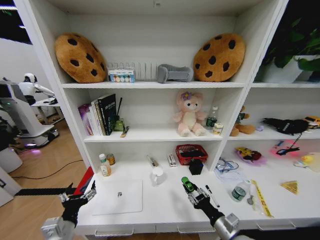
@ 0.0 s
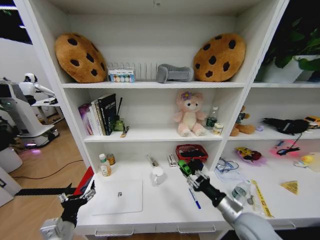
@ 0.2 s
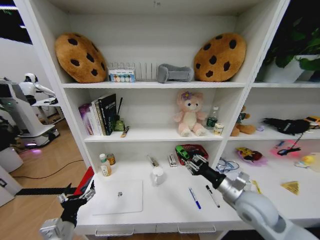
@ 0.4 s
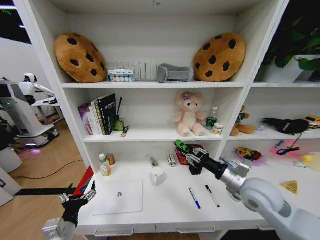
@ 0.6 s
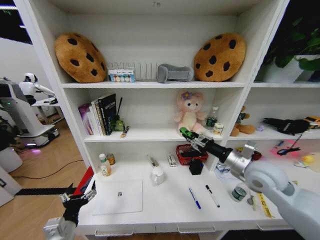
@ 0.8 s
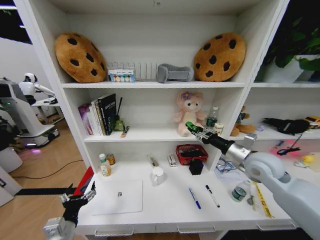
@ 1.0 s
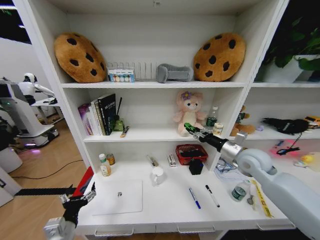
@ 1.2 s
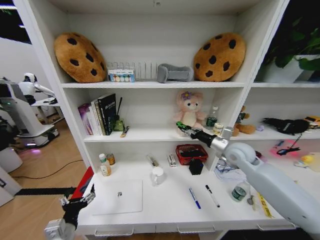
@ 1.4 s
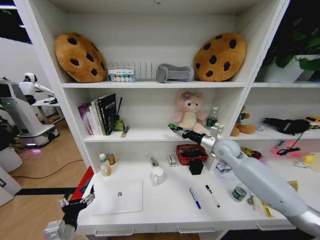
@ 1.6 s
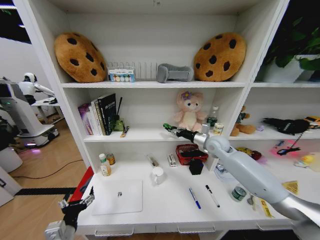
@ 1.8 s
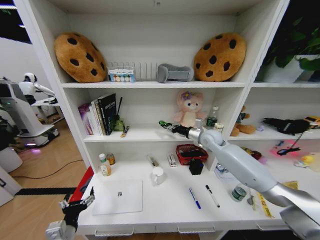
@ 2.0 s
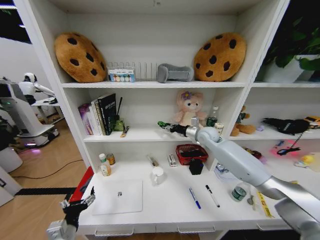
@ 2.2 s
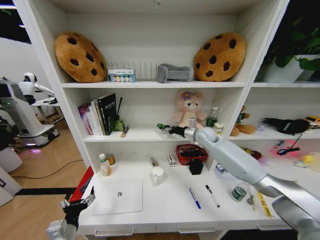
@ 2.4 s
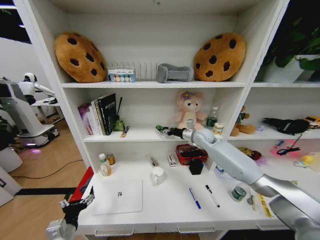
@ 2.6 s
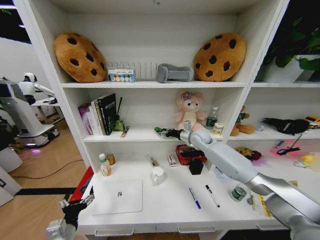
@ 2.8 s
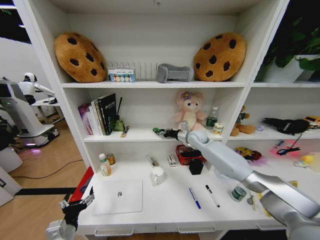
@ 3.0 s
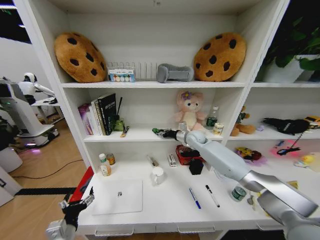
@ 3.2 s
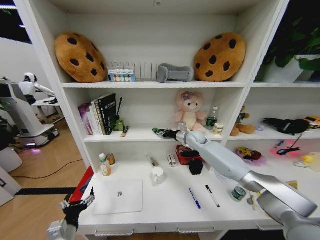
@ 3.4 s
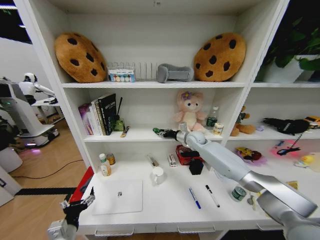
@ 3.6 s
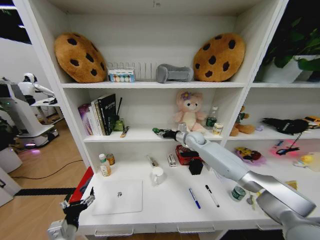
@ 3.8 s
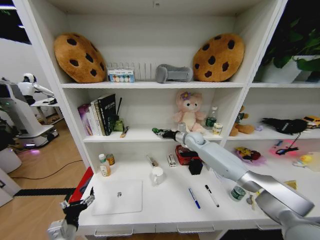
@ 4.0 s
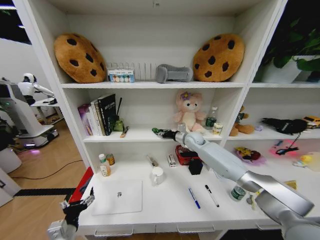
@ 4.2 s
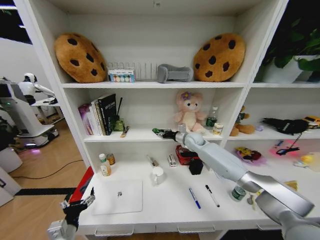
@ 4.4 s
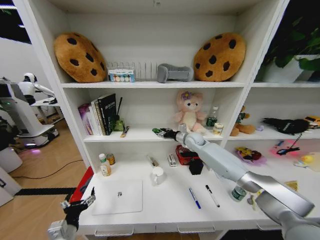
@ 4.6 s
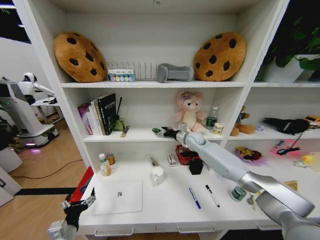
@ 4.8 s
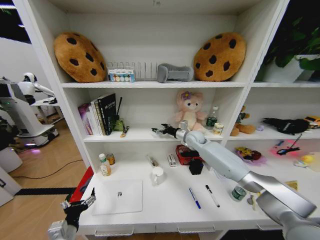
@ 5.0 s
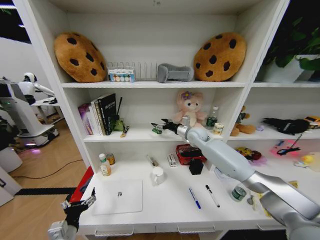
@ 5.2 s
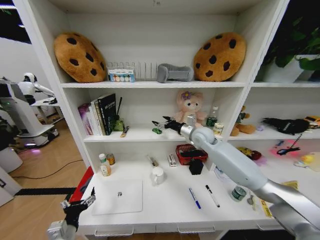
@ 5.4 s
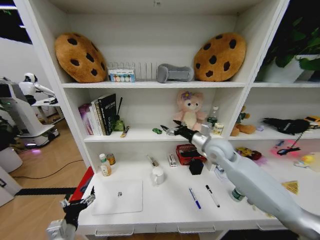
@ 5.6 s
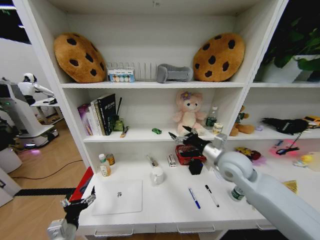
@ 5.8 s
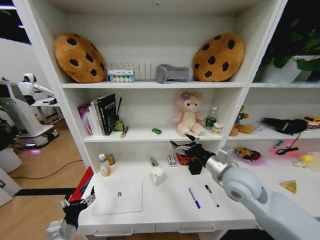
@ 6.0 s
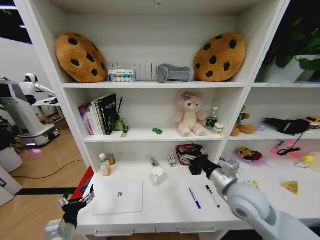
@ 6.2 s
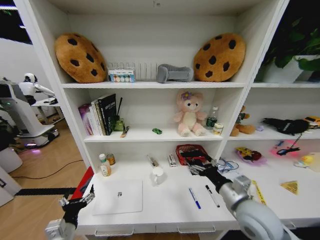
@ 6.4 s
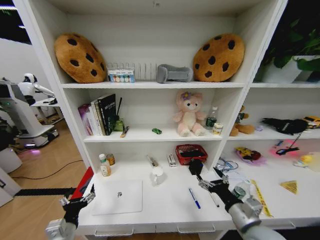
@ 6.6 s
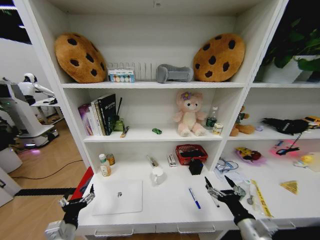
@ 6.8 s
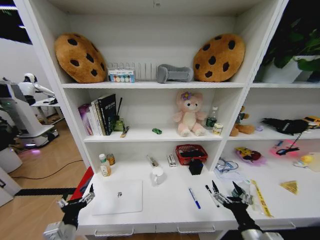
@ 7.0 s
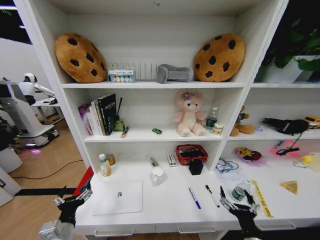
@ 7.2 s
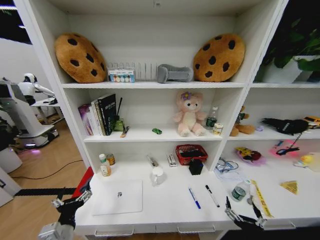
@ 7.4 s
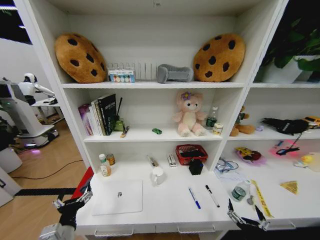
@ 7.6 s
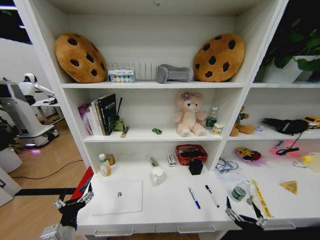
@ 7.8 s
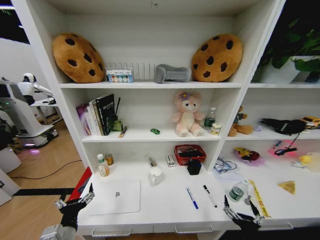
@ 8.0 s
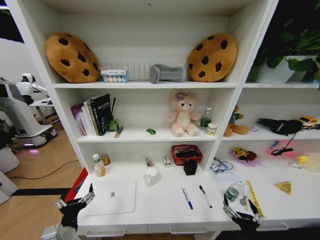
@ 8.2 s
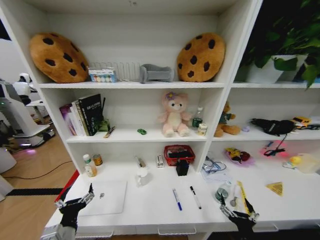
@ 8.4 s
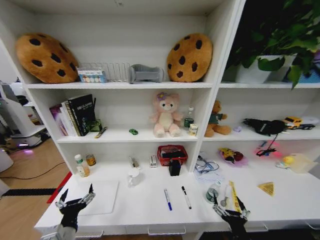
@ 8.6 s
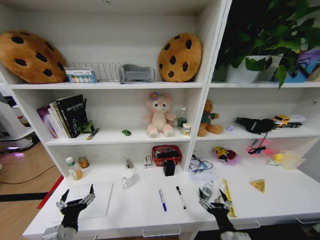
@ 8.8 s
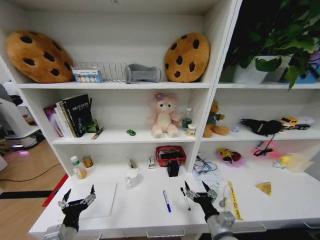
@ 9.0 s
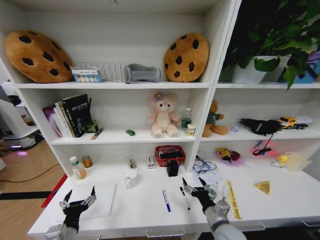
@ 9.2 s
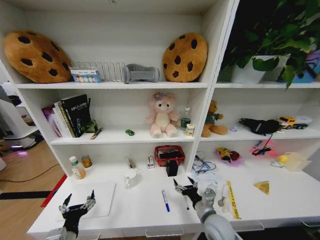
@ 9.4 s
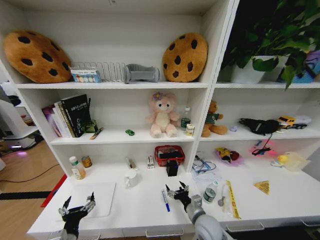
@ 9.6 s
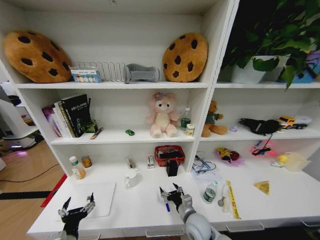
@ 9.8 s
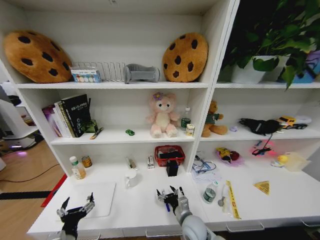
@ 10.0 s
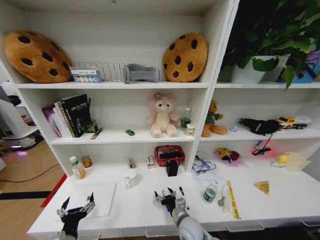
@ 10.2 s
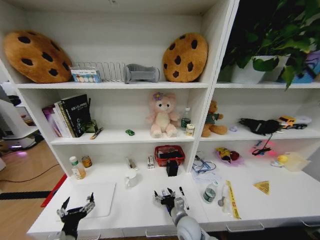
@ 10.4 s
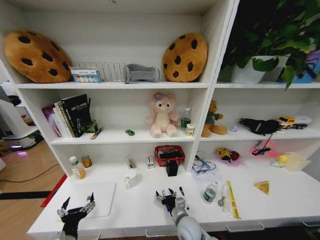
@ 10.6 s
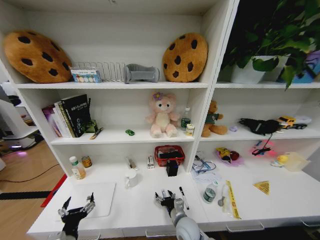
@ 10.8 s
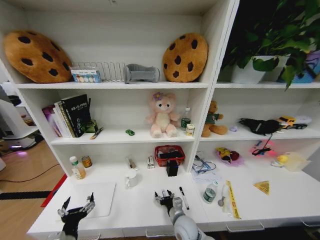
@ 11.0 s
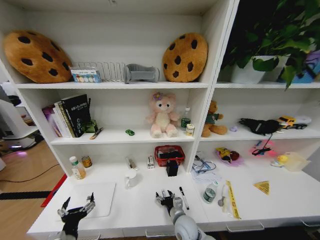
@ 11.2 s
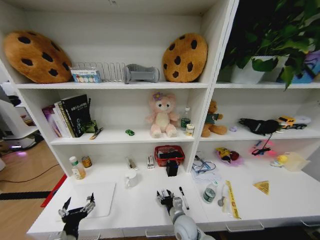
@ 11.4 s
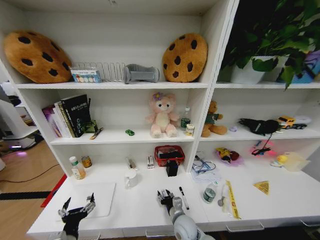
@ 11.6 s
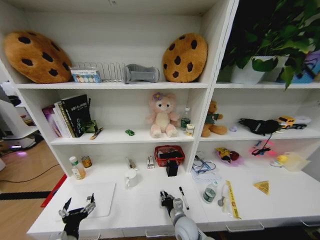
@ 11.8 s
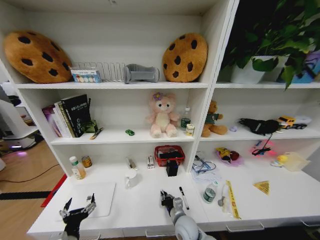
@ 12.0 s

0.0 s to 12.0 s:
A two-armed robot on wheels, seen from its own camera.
Task of the whole recording: Organize the objects on the table.
0.0 to 1.6 s: The right gripper moves forward and upward, some 35 cm.
1.6 to 3.0 s: The right gripper heads forward and to the left, covering about 15 cm.
3.0 to 4.4 s: There are only small adjustments of the grippers.
4.4 to 6.0 s: The right gripper goes approximately 25 cm backward, and opens its fingers.
6.0 to 7.6 s: The right gripper goes some 35 cm downward and backward.
7.6 to 9.0 s: The right gripper travels forward and to the left by approximately 10 cm.
9.0 to 10.4 s: The right gripper travels to the left, forward and downward by about 15 cm.
10.4 to 12.0 s: The right gripper closes up.

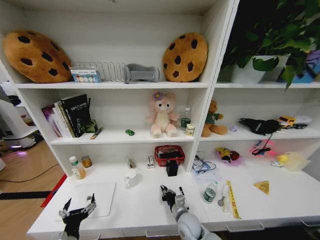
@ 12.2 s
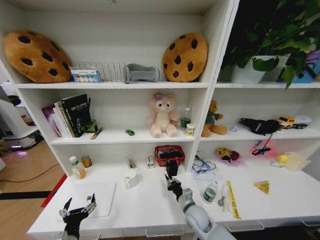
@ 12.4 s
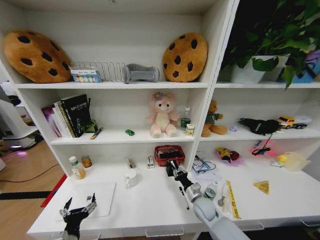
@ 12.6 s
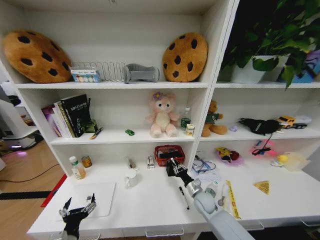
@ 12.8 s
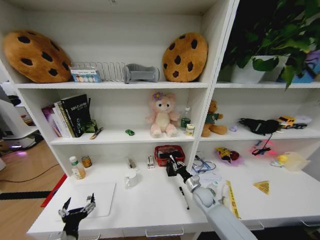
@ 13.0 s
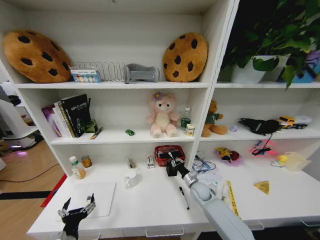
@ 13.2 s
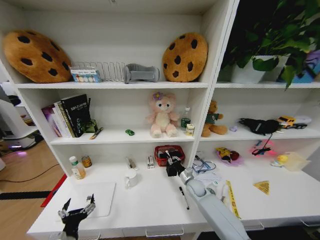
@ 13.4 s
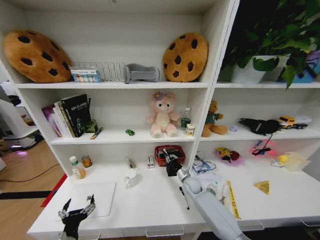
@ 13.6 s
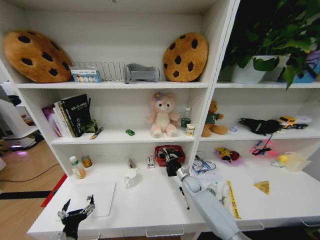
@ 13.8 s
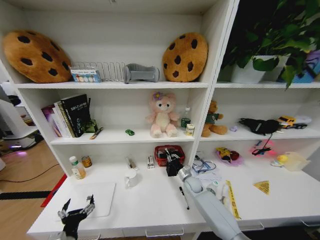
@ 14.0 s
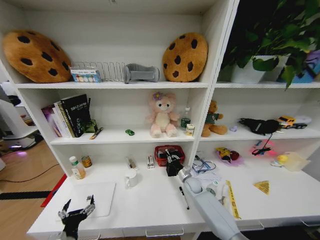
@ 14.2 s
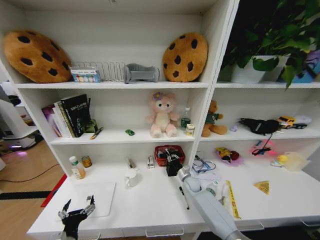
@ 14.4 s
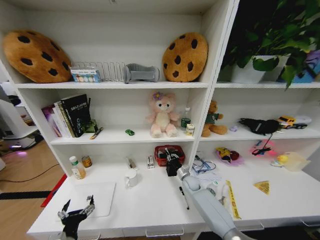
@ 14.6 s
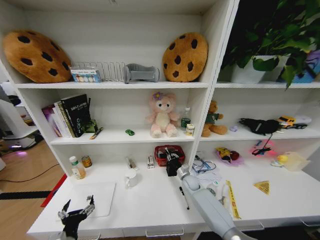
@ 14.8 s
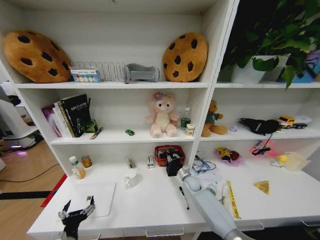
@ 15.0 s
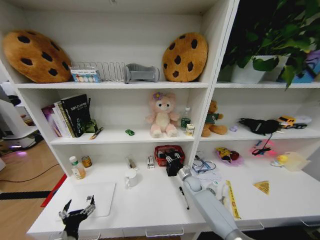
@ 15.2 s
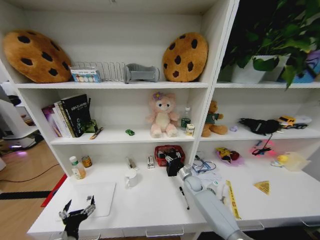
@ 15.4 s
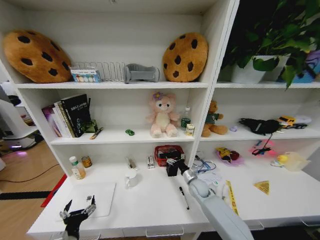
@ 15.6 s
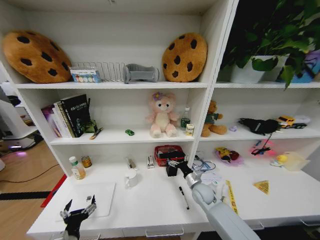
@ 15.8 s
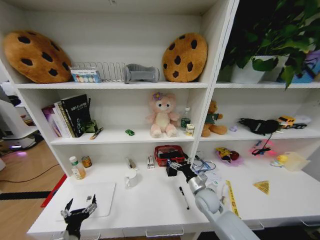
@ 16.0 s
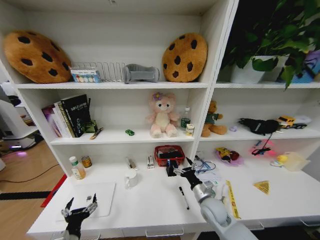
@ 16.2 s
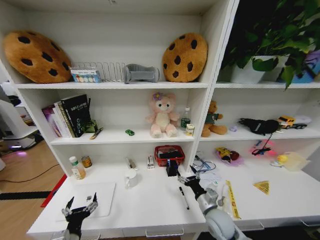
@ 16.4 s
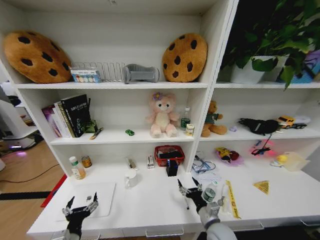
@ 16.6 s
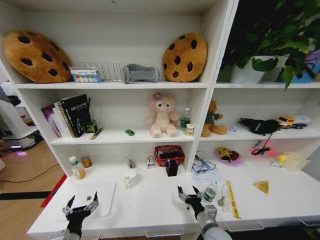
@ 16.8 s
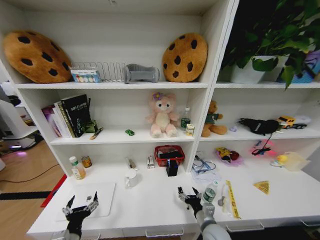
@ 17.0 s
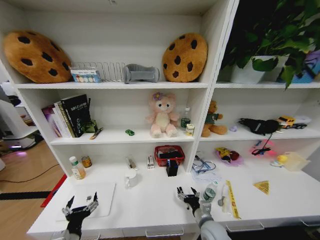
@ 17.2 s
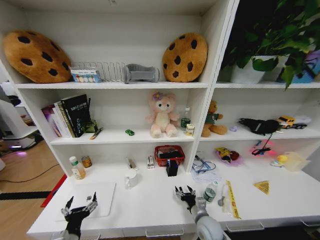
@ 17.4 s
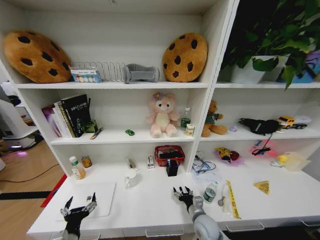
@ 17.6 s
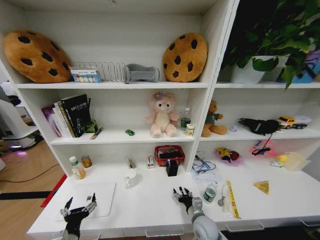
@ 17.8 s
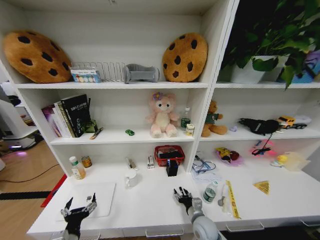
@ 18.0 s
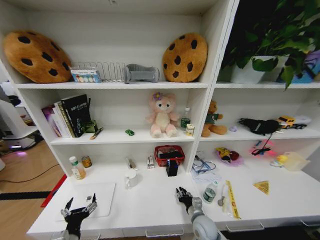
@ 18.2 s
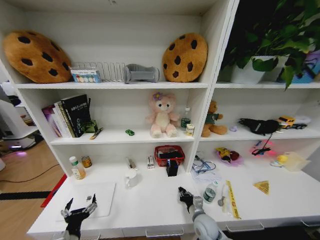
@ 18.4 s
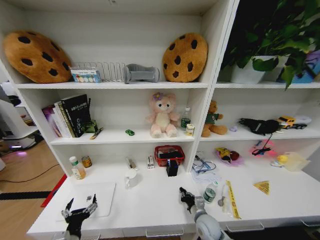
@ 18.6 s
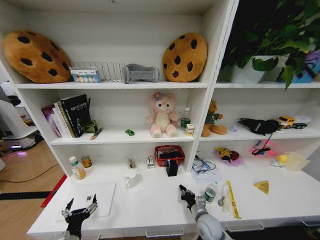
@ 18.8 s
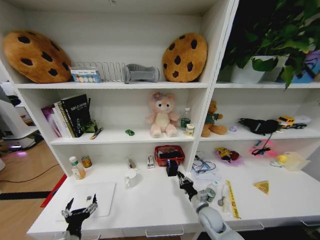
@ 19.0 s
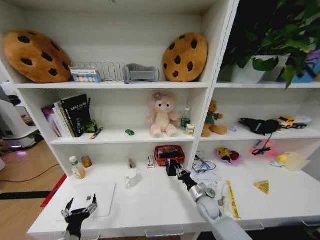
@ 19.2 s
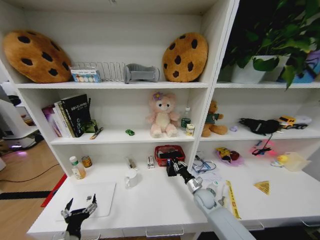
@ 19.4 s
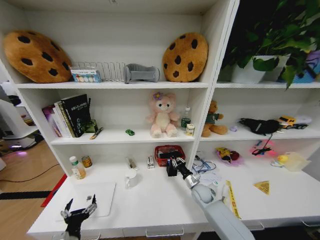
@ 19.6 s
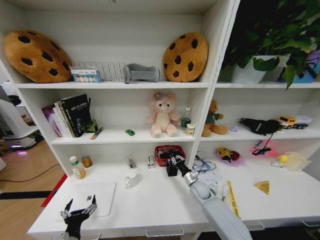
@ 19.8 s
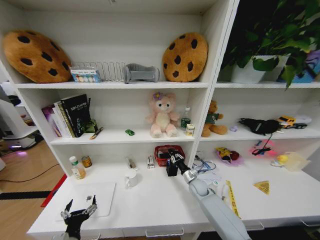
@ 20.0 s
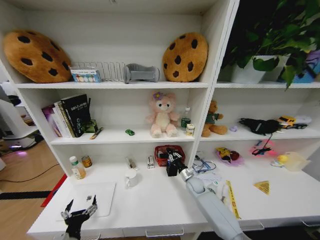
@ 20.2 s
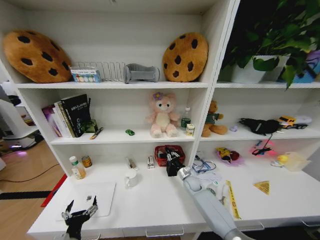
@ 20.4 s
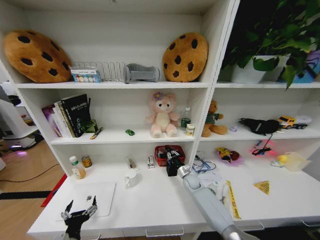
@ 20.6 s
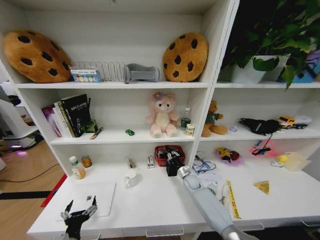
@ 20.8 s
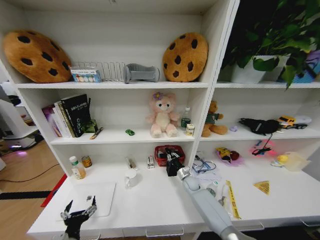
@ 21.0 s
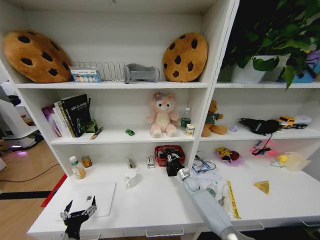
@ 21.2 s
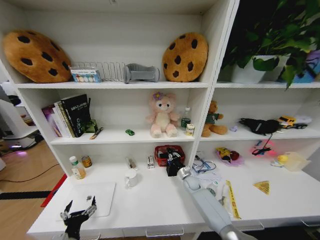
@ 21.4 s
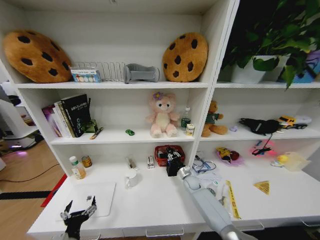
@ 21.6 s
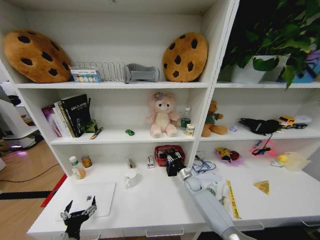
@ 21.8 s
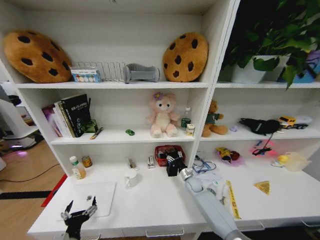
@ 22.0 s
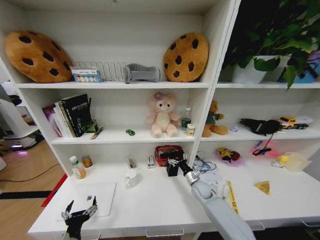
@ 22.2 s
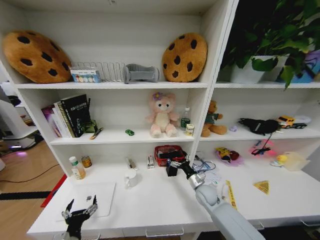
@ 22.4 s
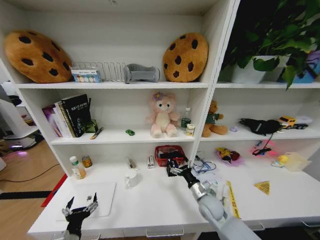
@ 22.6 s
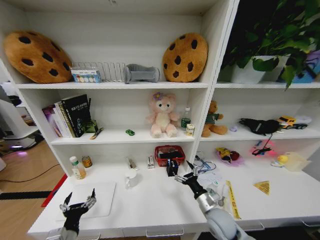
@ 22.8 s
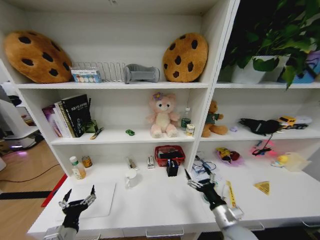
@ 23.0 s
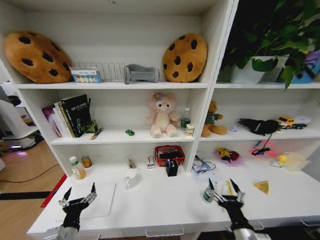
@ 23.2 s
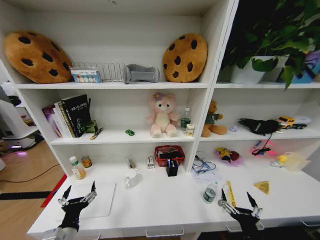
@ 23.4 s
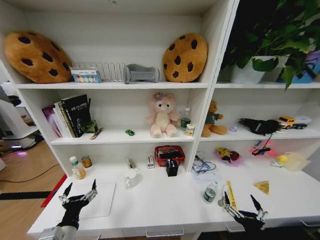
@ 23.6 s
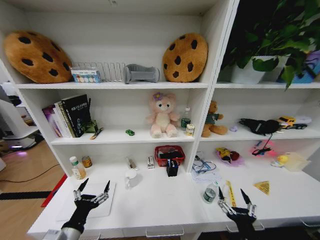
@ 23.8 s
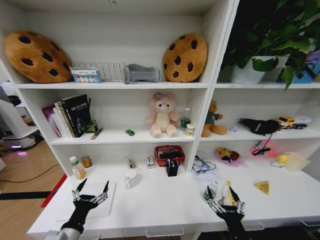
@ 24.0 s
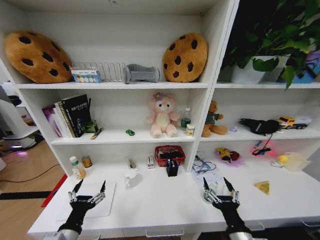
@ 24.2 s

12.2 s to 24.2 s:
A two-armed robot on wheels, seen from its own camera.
Task of the whole recording: Organize the objects on the table.
12.2 to 13.8 s: The right gripper travels forward by roughly 20 cm.
13.8 to 15.2 s: The right gripper opens.
15.2 to 16.6 s: The right gripper is displaced backward by approximately 25 cm, and opens up.
16.6 to 18.2 s: The right gripper goes roughly 5 cm downward, and closes.
18.2 to 19.8 s: The right gripper moves forward, approximately 15 cm, and closes its fingers.
19.8 to 21.2 s: The right gripper shifts about 5 cm forward.
21.2 to 22.6 s: The right gripper heads backward and upward, covering roughly 20 cm, and opens.
22.6 to 24.2 s: The right gripper heads backward and upward, covering roughly 25 cm, while the left gripper is displaced upward by about 5 cm.
